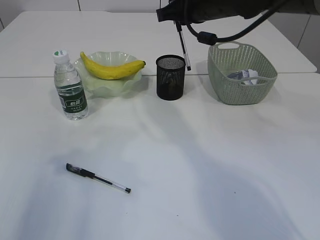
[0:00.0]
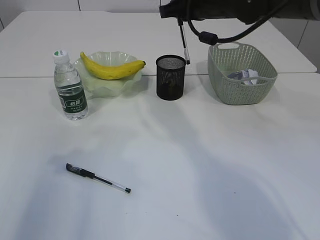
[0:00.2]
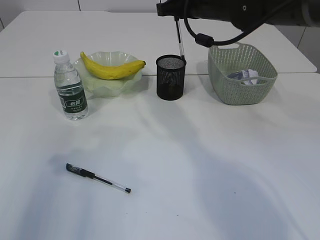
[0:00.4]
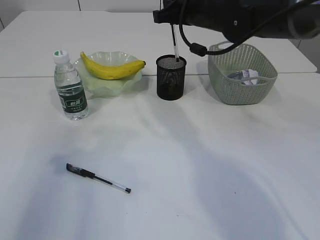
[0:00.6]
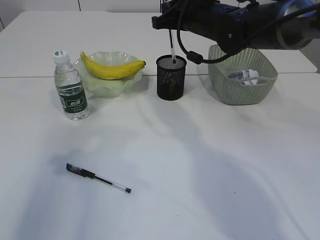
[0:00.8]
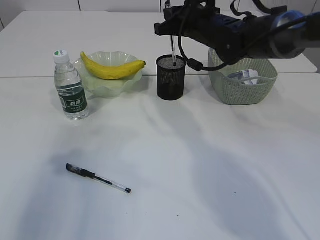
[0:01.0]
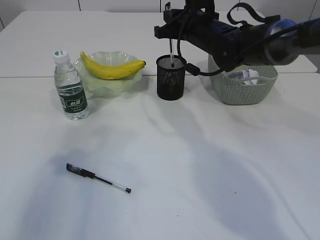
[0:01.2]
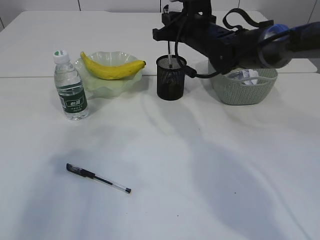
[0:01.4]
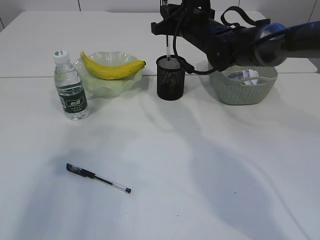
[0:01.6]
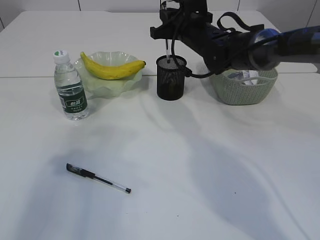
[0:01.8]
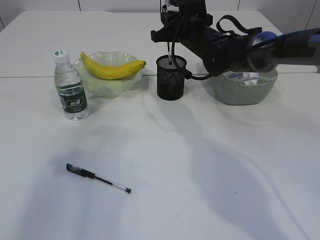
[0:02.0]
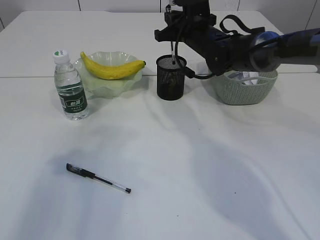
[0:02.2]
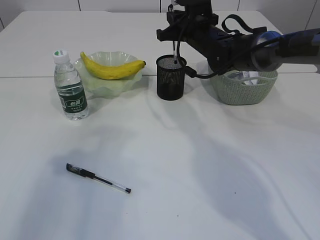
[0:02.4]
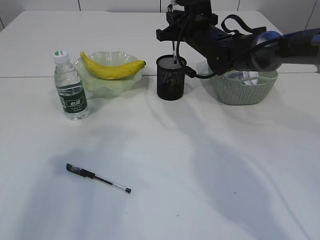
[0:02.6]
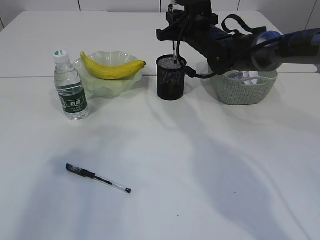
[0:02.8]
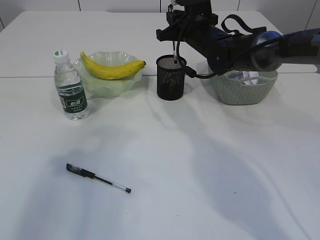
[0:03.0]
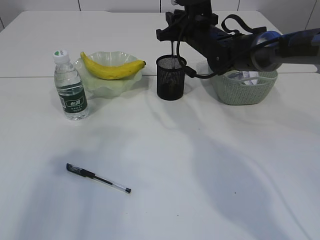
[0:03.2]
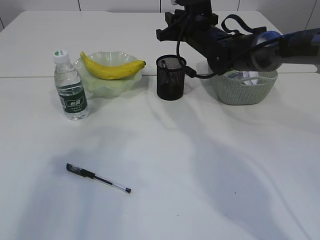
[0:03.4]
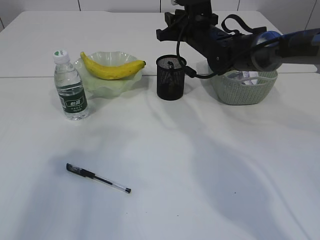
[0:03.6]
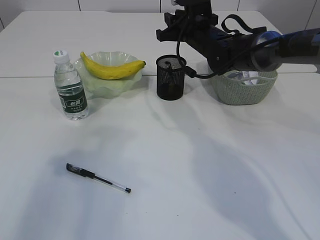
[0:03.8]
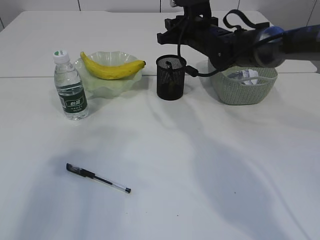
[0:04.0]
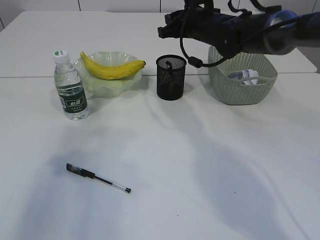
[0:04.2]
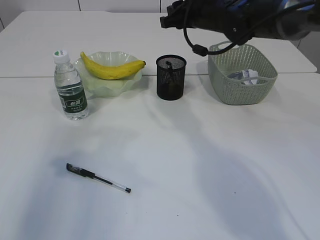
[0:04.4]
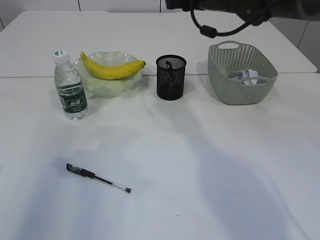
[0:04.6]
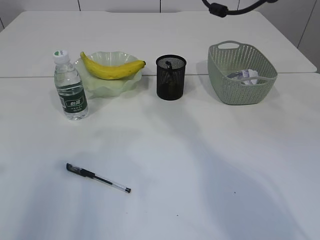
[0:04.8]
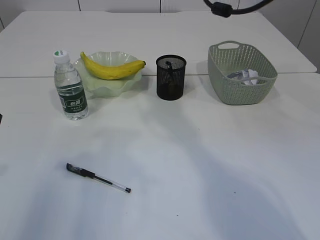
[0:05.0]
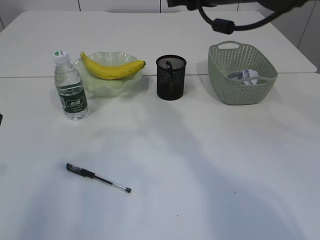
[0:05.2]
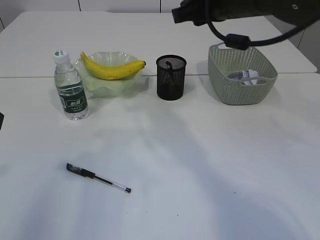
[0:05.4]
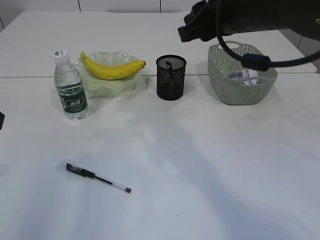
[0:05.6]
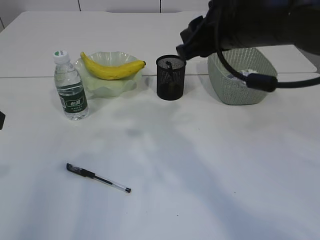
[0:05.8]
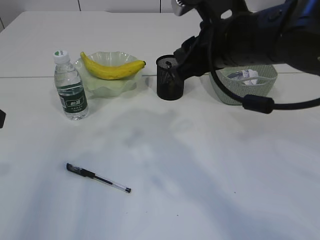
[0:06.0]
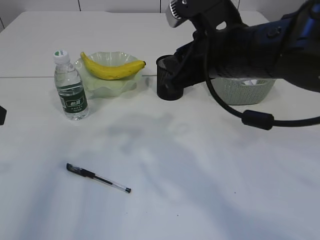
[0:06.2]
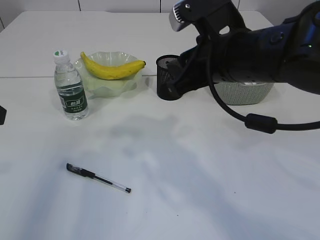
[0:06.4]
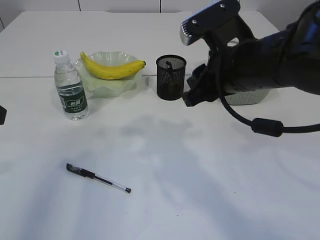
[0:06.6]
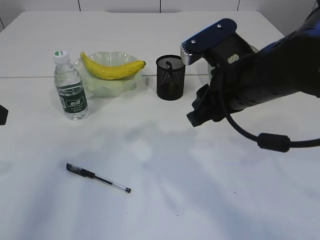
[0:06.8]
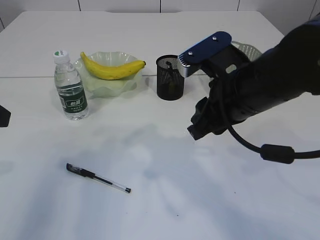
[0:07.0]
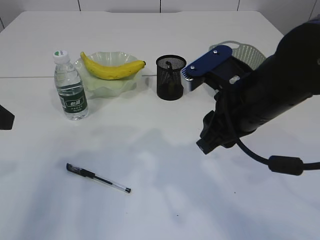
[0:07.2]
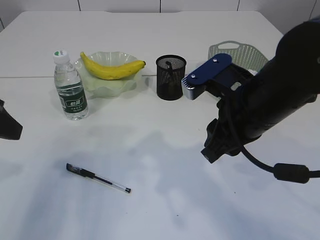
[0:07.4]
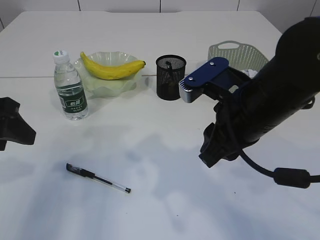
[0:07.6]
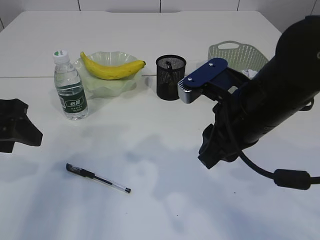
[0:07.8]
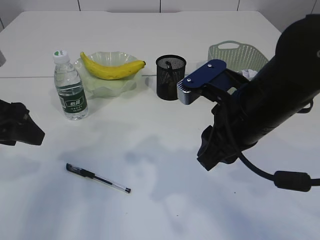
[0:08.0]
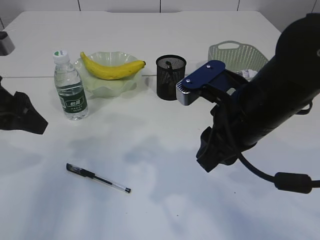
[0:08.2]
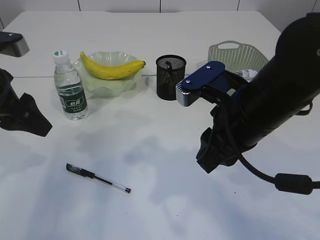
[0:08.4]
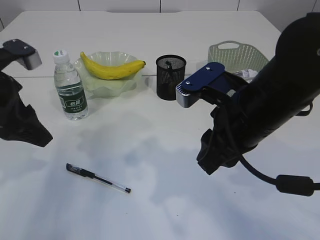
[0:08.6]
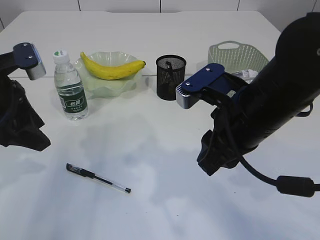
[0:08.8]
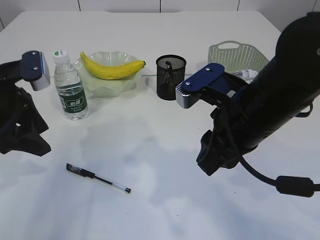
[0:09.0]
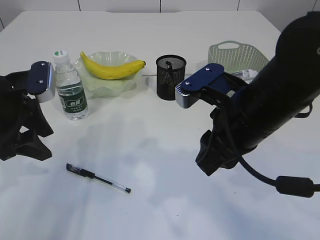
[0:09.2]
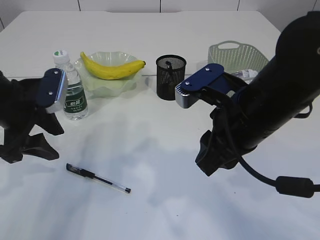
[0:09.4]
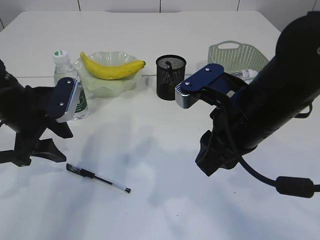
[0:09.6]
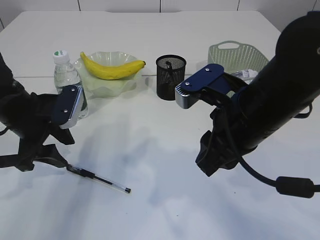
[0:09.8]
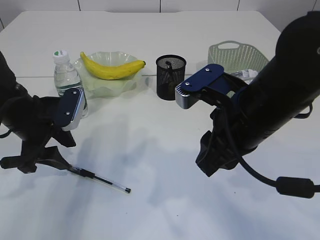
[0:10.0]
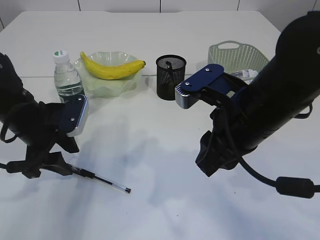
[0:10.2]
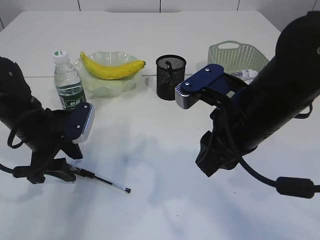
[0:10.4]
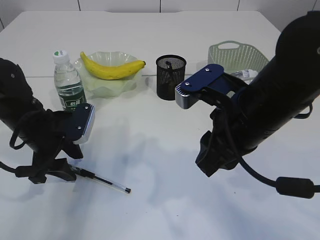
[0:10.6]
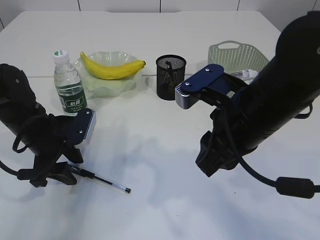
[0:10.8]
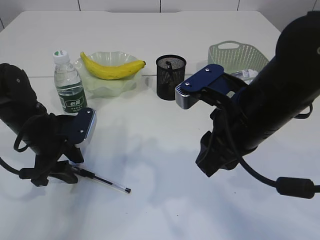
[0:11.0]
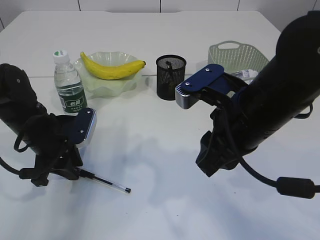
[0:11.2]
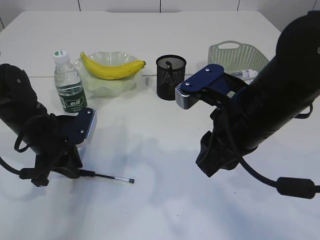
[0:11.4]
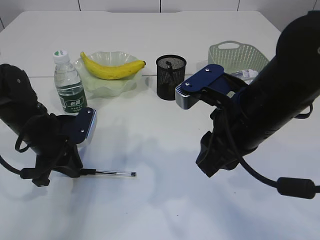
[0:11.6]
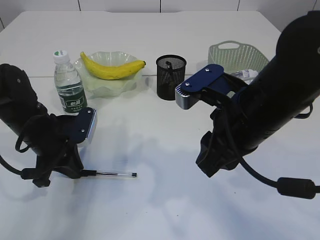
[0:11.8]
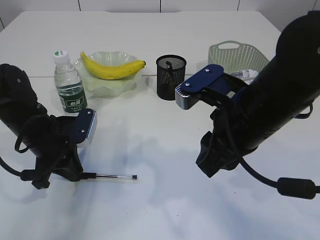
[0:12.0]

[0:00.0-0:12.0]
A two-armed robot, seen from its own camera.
Step, 0:00.0 to 0:04.0: Place the pen into the pen holder.
0:00.0 to 0:01.6: The right gripper heads downward and forward, covering about 10 cm.
0:01.6 to 0:03.0: The grippers make only small movements.
0:03.0 to 0:04.4: The right gripper shifts roughly 5 cm upward.
0:04.4 to 0:06.0: The right gripper goes roughly 20 cm backward.
0:06.0 to 0:07.6: The left gripper changes place by roughly 5 cm; the right gripper is displaced downward and backward by approximately 10 cm.
0:07.6 to 0:09.0: The left gripper is displaced forward by roughly 5 cm.
0:09.0 to 0:10.4: The left gripper goes roughly 10 cm downward.
0:10.4 to 0:12.0: The left gripper closes its fingers.

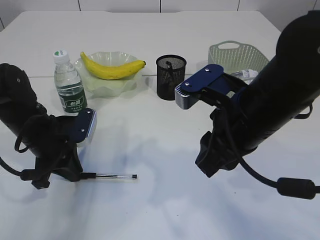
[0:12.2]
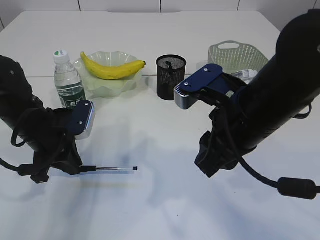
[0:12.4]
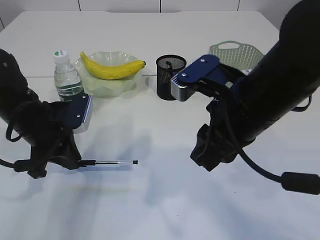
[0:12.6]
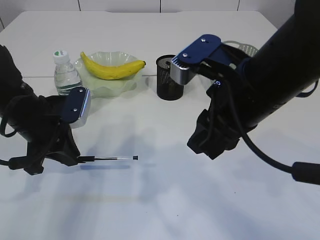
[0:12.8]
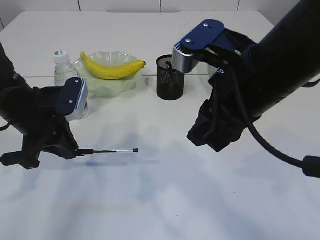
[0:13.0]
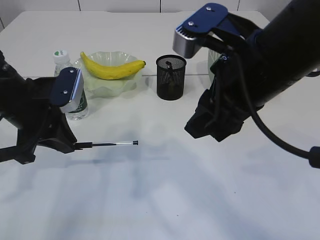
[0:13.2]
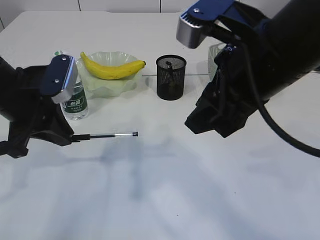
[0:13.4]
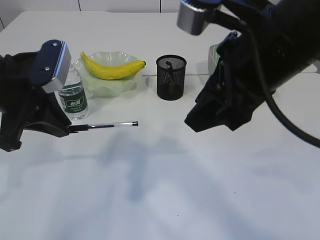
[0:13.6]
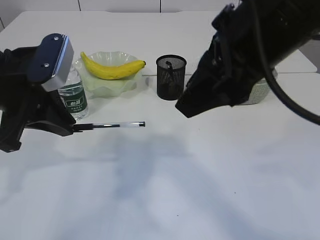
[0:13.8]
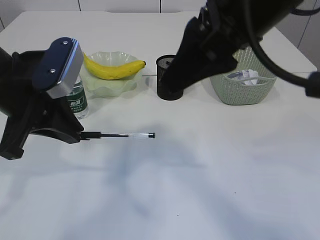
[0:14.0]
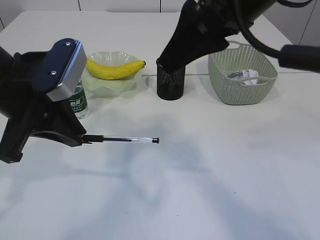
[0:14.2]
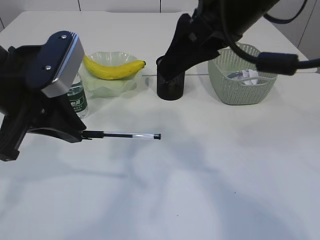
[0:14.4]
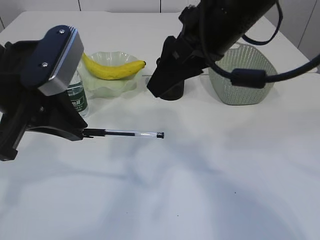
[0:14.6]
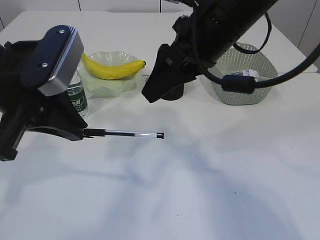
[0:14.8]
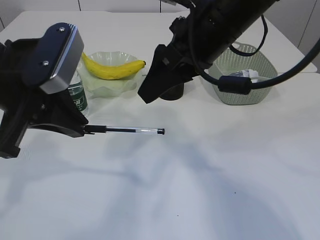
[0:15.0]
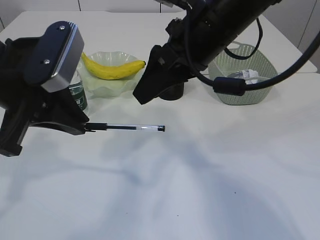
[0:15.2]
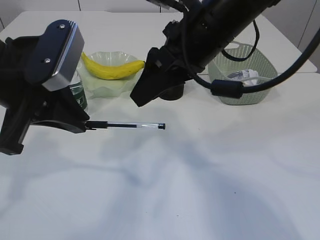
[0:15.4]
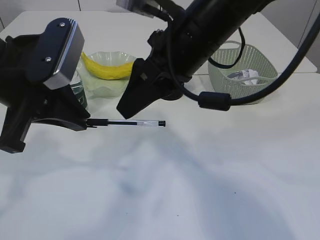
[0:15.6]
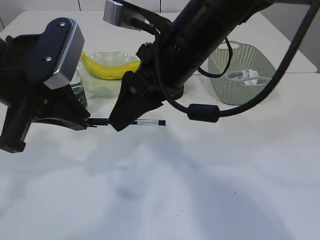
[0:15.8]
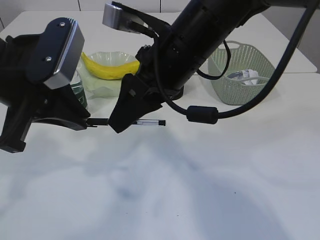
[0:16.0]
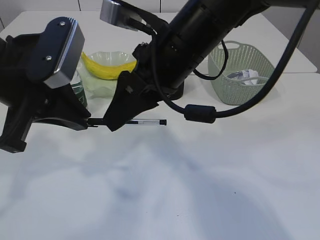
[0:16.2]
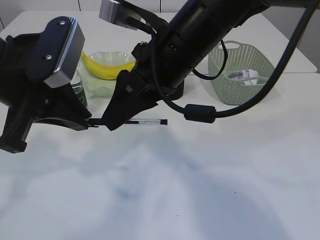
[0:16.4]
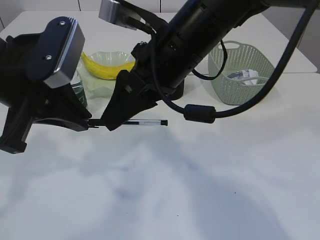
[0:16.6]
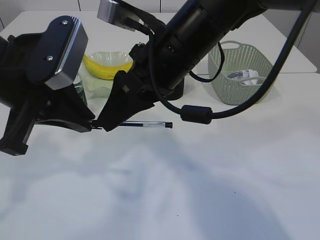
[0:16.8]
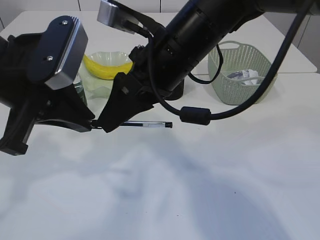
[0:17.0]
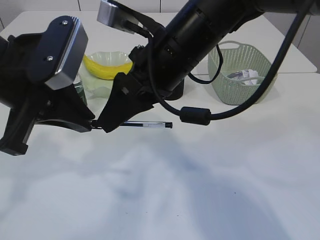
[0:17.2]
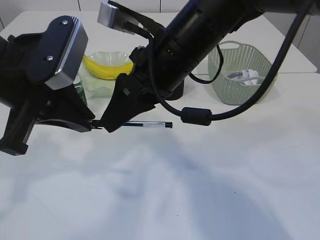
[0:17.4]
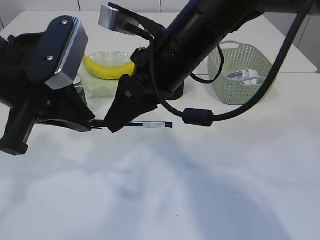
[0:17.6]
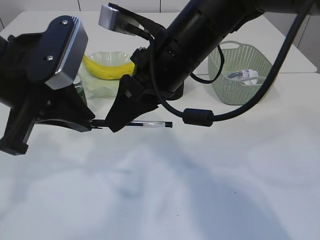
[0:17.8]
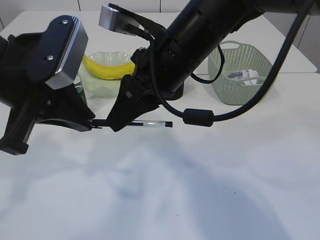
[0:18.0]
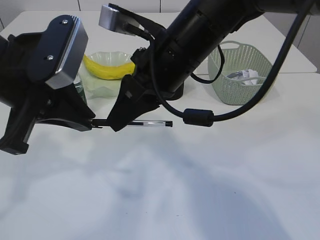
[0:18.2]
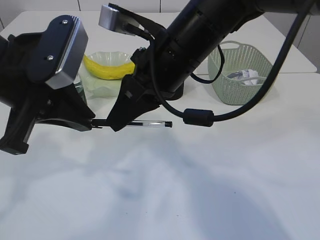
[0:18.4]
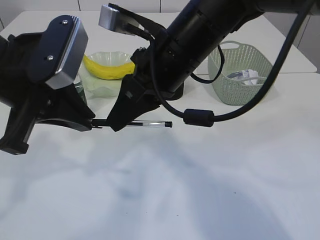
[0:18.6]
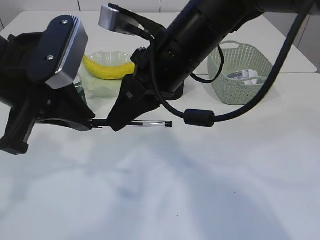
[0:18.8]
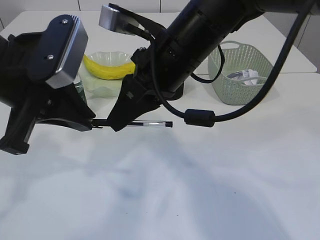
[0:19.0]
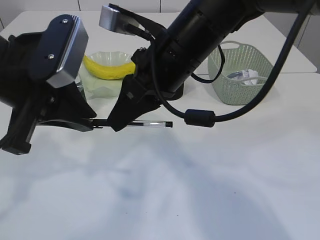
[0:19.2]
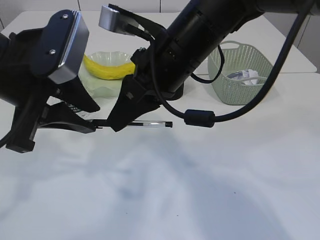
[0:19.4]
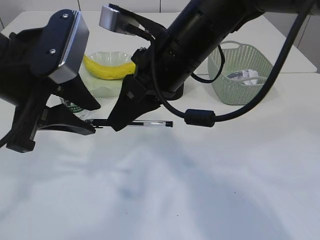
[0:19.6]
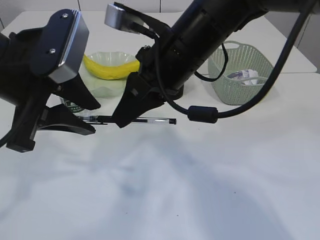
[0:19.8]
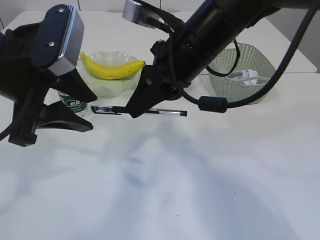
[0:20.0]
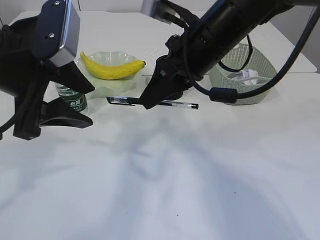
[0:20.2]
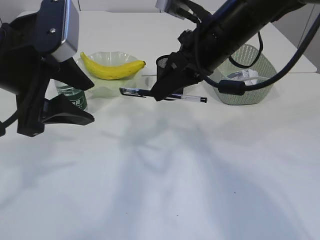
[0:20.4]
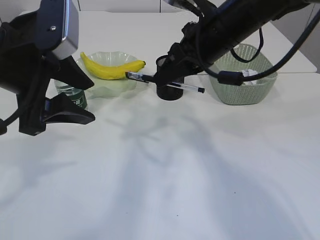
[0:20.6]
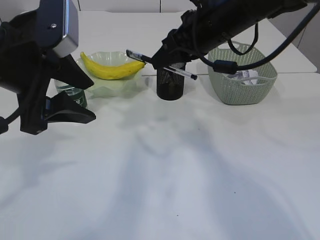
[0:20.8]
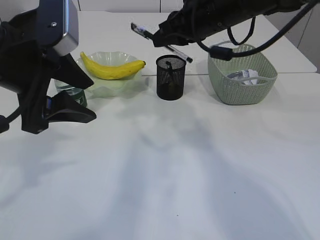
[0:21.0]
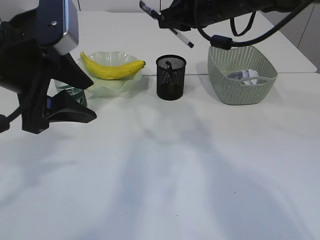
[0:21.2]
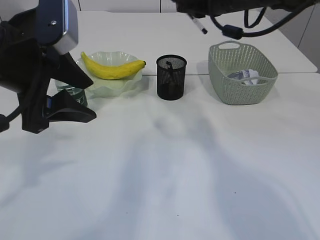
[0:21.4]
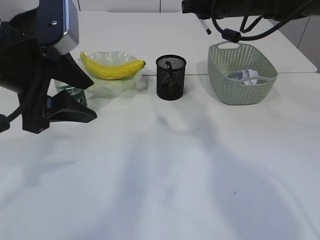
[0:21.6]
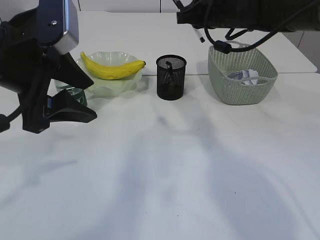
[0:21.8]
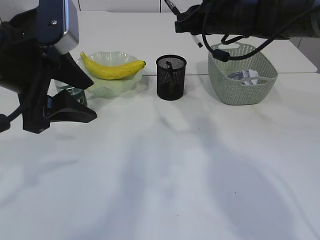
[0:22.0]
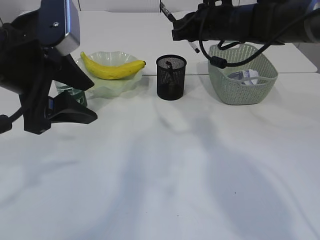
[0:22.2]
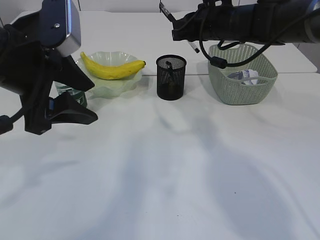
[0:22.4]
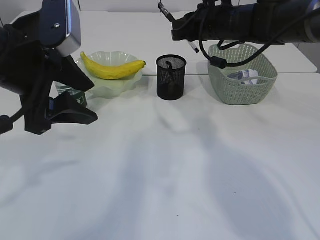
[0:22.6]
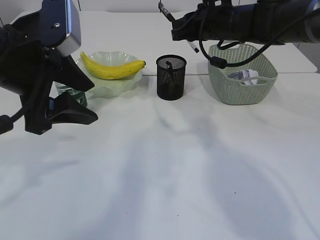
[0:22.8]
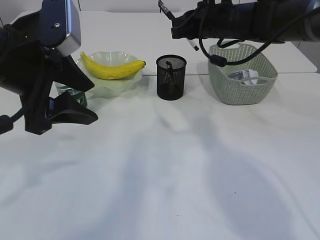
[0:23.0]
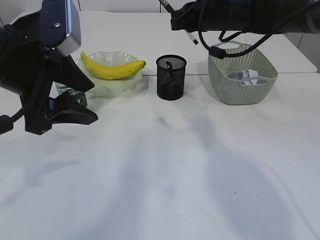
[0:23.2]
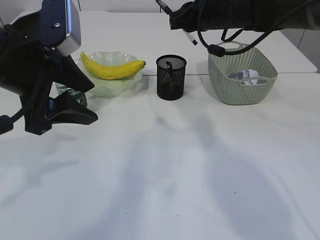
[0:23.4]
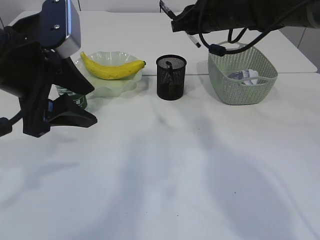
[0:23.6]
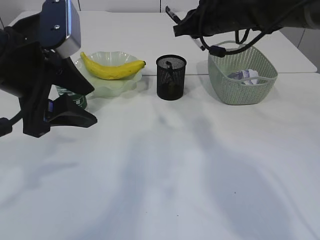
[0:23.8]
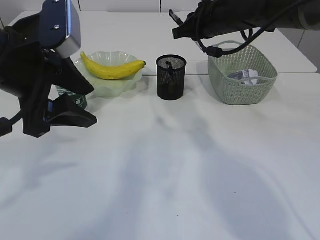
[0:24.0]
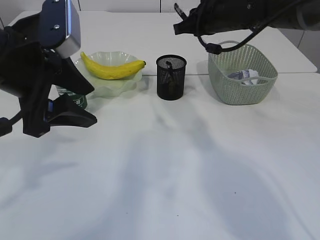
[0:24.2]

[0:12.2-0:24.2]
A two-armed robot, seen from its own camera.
Step, 0:13.4 to 0:19.8: transfer the pen to the right arm.
0:12.2 to 0:13.8: The two grippers go roughly 15 cm upward.
0:13.8 to 0:15.2: The right gripper shifts roughly 10 cm forward.
0:15.2 to 0:16.6: The grippers make only small movements.
0:16.6 to 0:18.2: The right gripper closes its fingers.
0:18.2 to 0:19.8: The left gripper opens its fingers.
0:19.8 to 0:21.2: The right gripper travels forward and to the right by about 10 cm.
0:21.2 to 0:22.6: The right gripper goes approximately 10 cm forward and downward.
0:22.6 to 0:24.2: The grippers move only a little.
